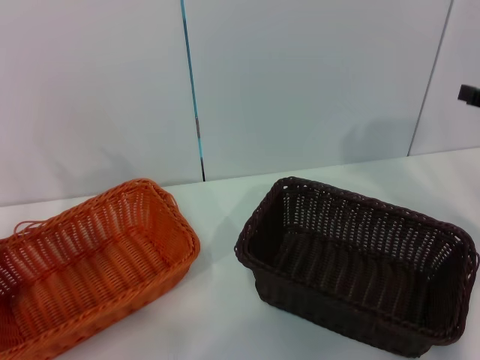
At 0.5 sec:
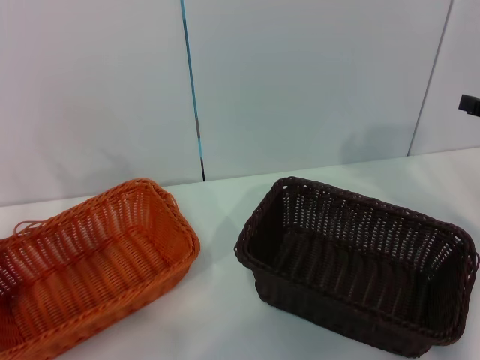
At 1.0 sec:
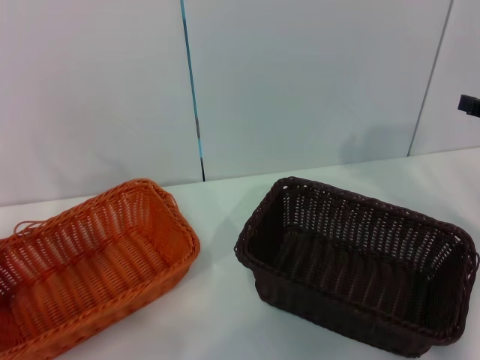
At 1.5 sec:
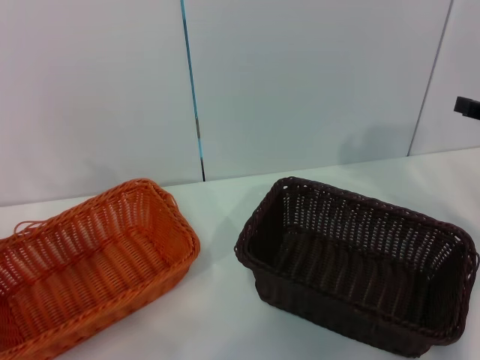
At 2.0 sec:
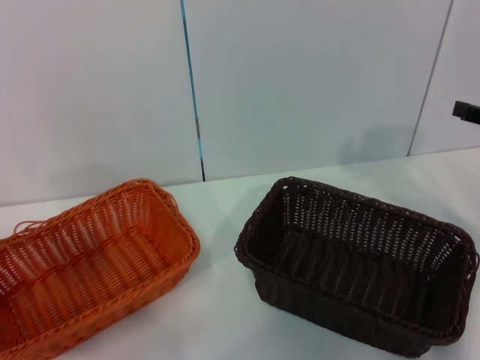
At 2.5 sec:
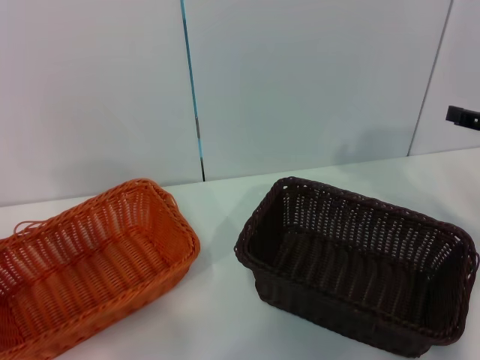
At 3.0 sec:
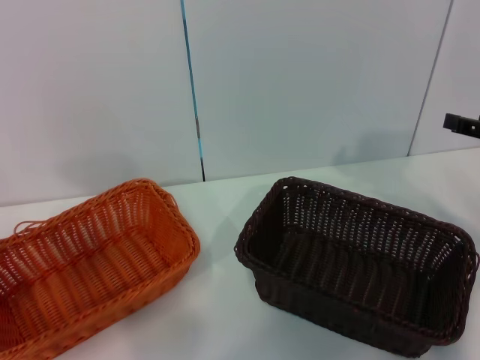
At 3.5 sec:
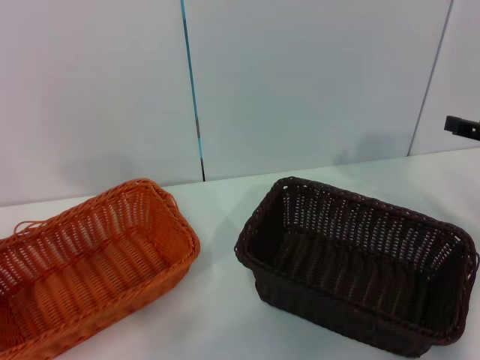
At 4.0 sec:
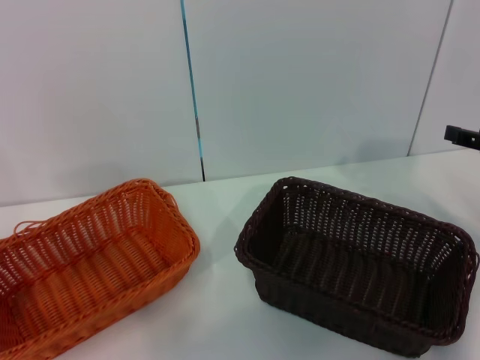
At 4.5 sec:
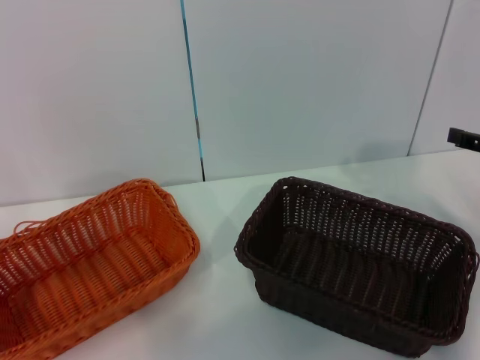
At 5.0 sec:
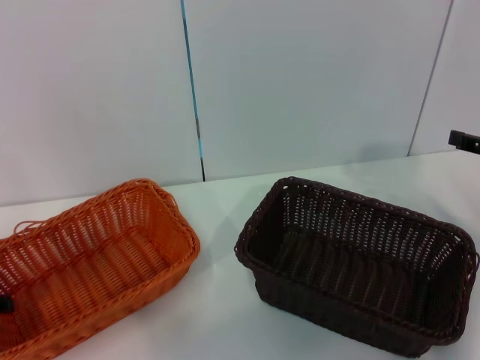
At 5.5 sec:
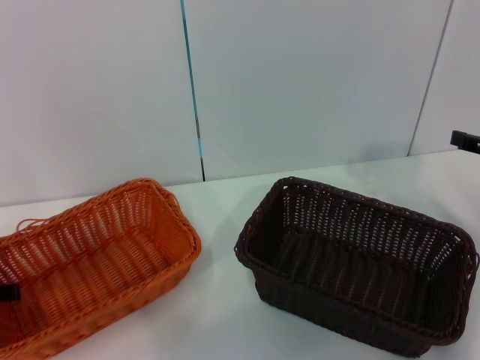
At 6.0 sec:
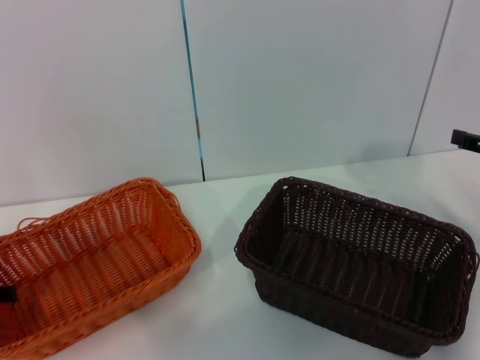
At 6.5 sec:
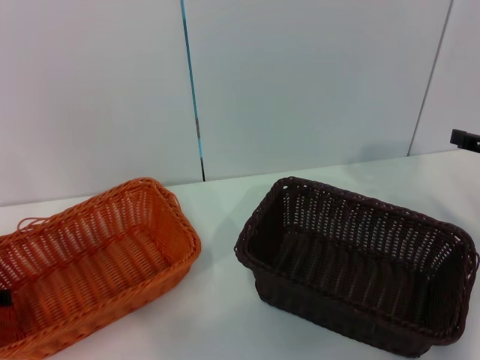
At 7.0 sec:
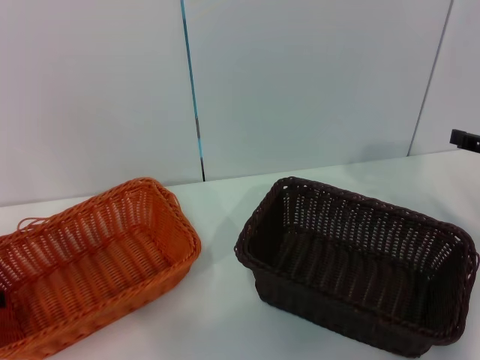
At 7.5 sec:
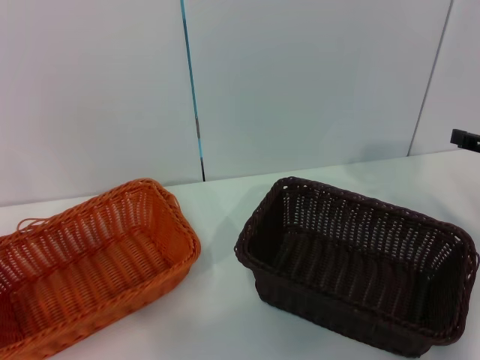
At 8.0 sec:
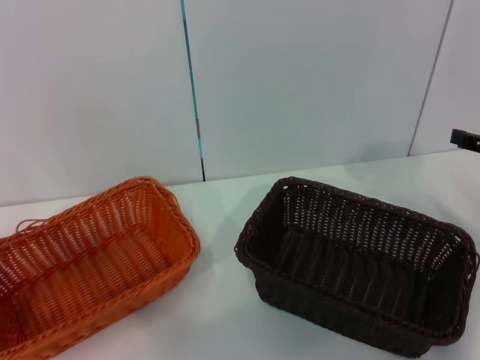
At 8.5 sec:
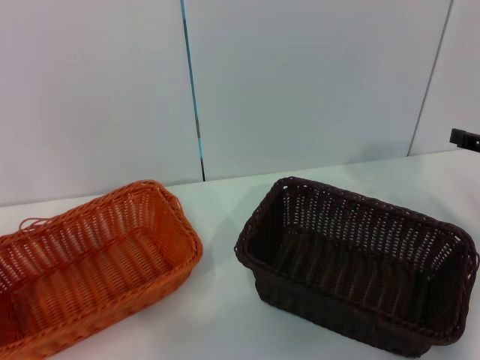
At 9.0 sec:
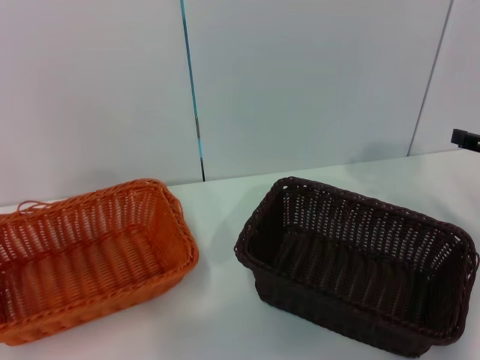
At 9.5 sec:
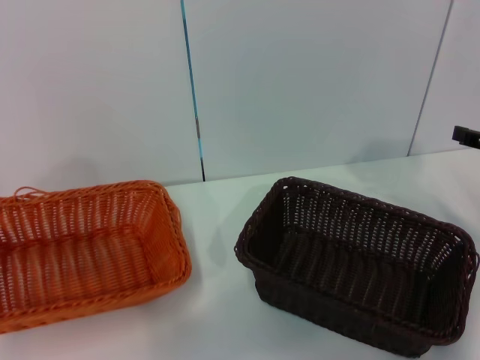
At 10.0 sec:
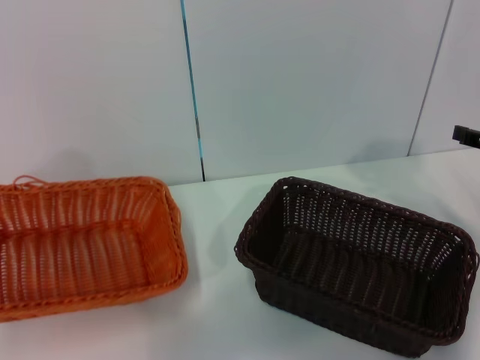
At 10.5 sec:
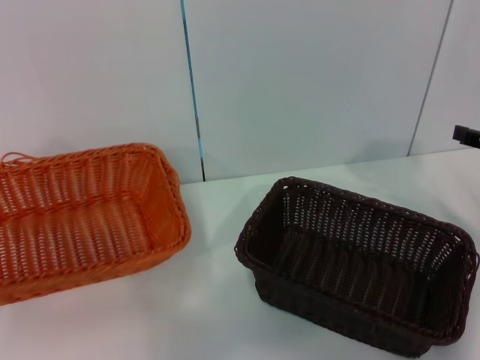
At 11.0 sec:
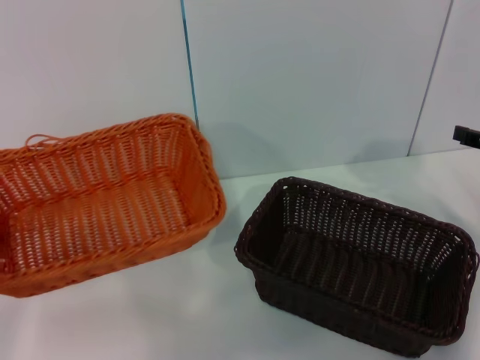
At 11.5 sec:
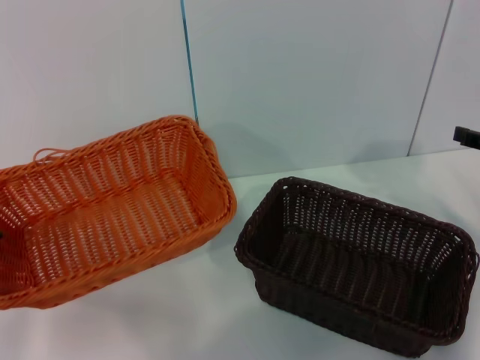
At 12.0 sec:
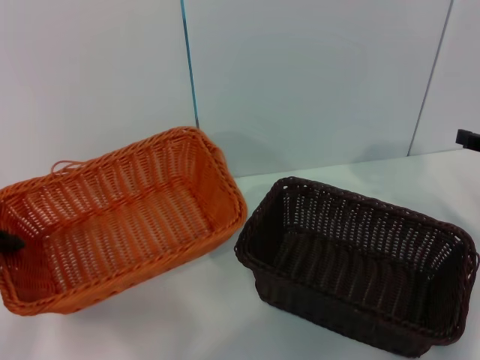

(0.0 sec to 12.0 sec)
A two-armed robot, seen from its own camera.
Step, 0.0 sec - 10.0 sec: Pick up the light basket with the left gripper.
4.0 sec - 6.0 sec: The left gripper travels downward by approximately 5 cm.
8.0 sec - 10.0 sec: The left gripper is displaced upward by some 5 cm.
10.0 sec - 12.0 sec: The left gripper shifts by about 5 cm.

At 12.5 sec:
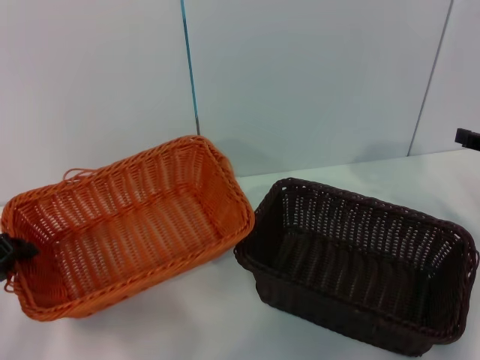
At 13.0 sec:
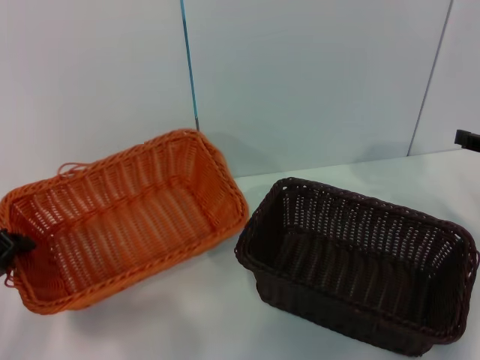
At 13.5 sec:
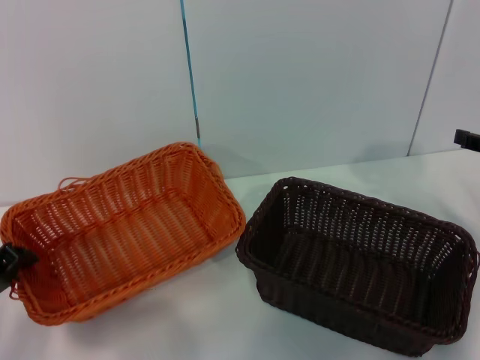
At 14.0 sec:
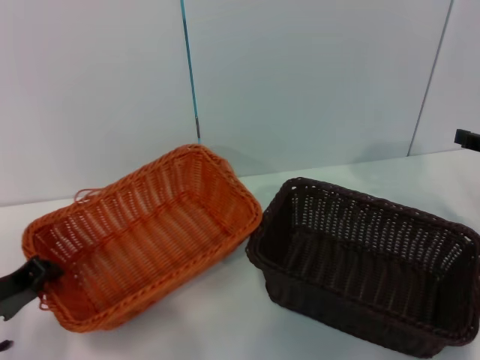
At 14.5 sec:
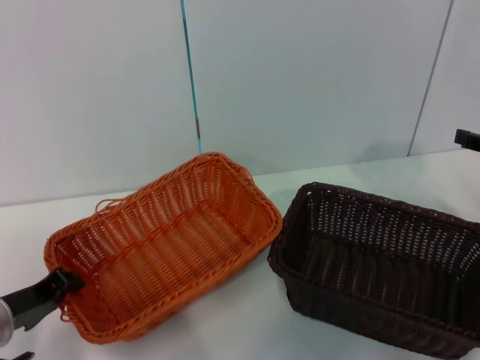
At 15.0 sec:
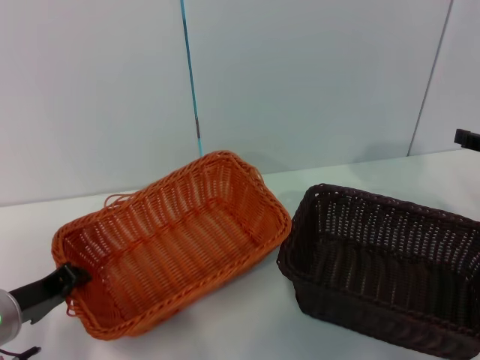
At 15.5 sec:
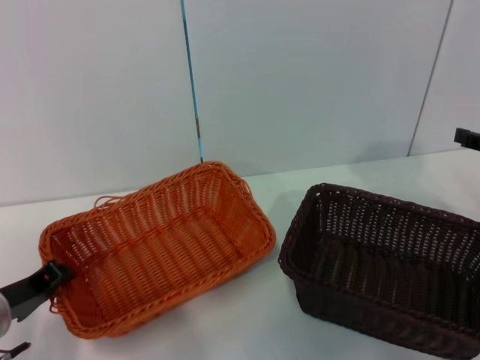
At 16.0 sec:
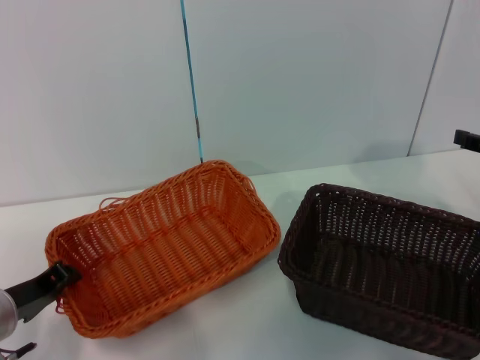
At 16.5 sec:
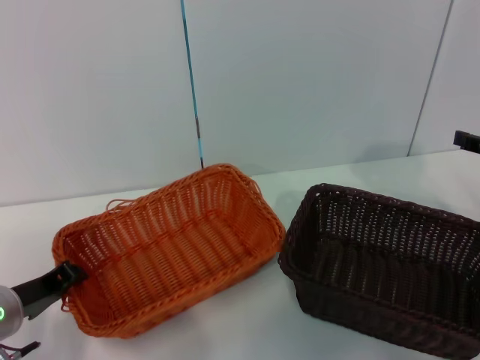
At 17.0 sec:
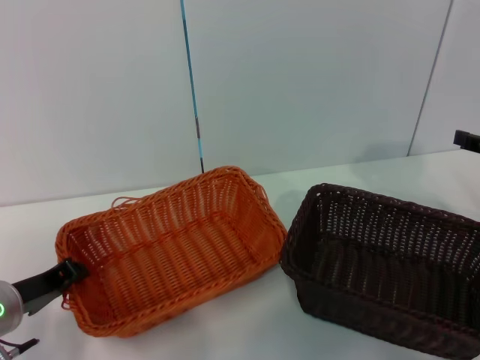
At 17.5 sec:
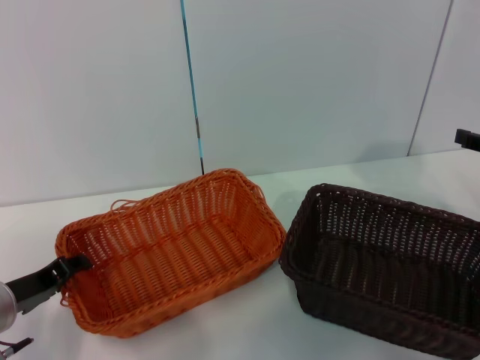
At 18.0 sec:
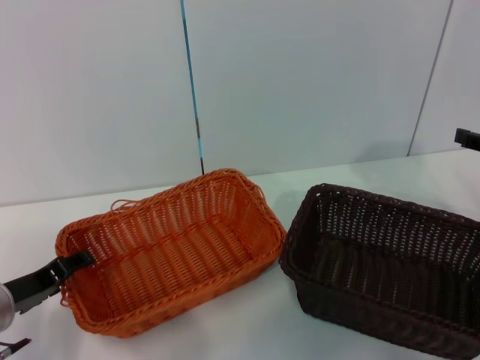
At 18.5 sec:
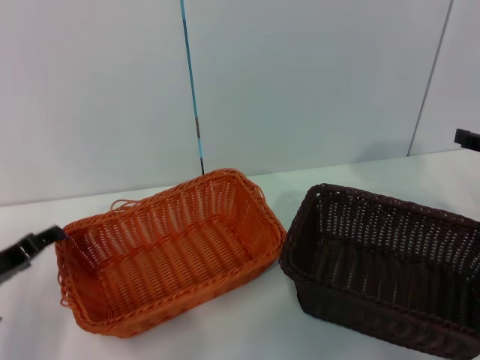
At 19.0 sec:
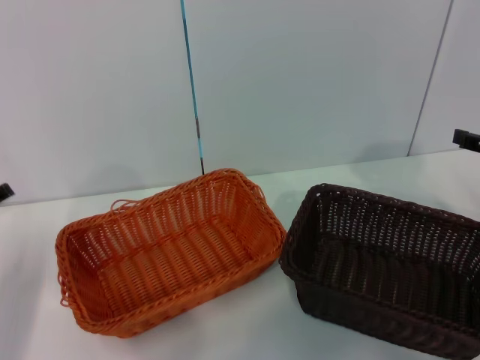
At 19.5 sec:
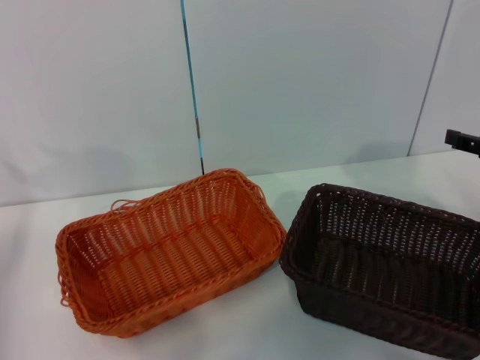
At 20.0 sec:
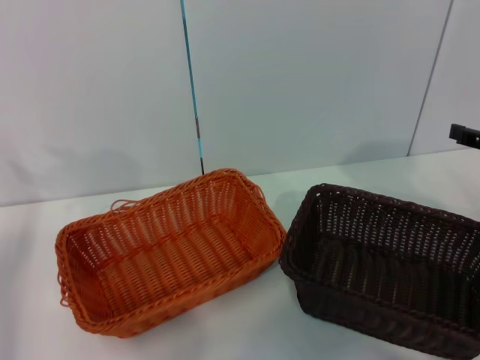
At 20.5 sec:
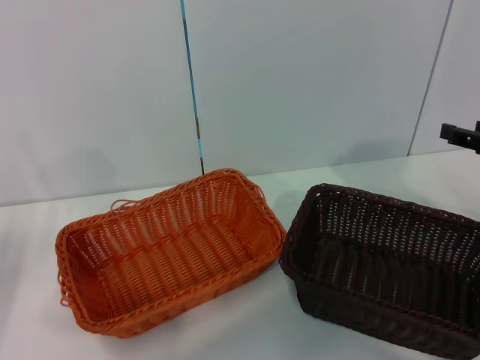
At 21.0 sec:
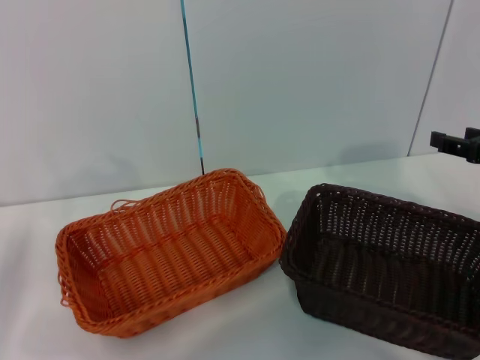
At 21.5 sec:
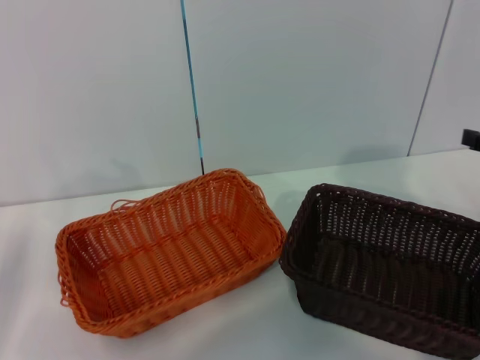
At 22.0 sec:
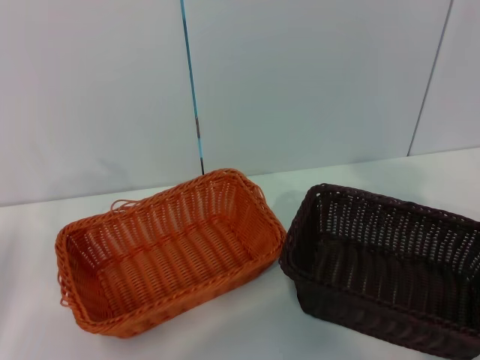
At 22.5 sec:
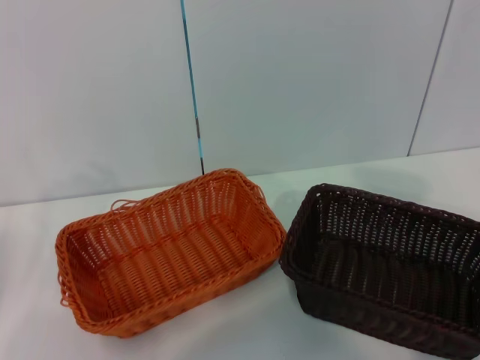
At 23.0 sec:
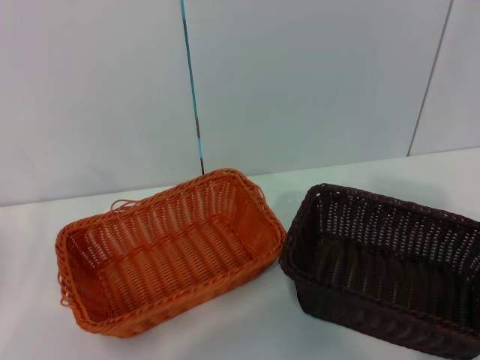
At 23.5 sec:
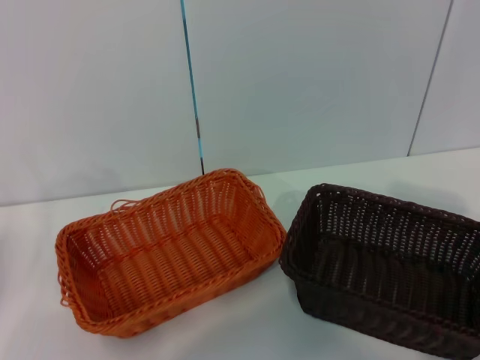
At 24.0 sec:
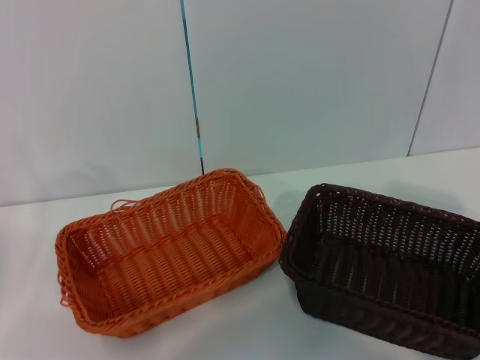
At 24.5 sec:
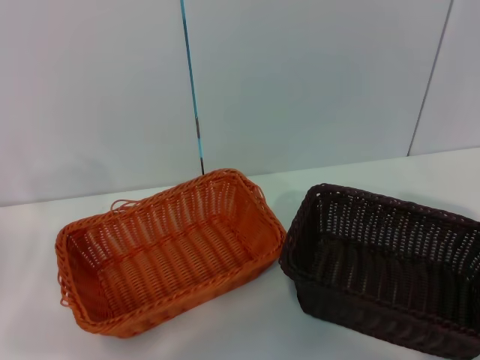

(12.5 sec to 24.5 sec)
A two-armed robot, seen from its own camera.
Step, 12.5 sec - 18.5 sec: Place the light basket in the center of view with the left gripper.
12.5 sec - 14.5 sec: The left gripper ends up approximately 5 cm from where it was.
14.5 sec - 16.5 sec: There are only small adjustments of the grippers.
16.5 sec - 18.5 sec: The left gripper opens its fingers.
18.5 sec - 20.5 sec: The left gripper travels to the left and upward by some 10 cm.
20.5 sec - 22.5 sec: The right gripper shifts roughly 10 cm backward.

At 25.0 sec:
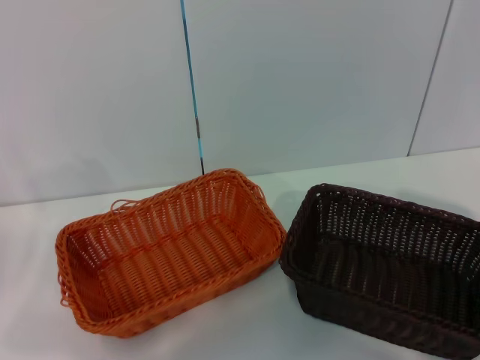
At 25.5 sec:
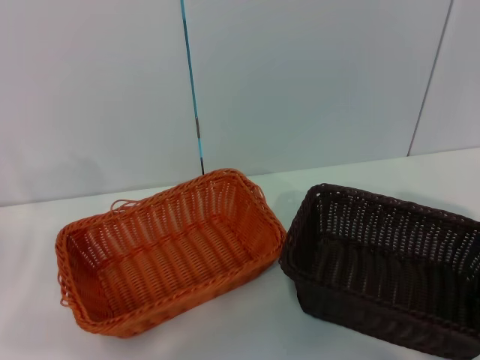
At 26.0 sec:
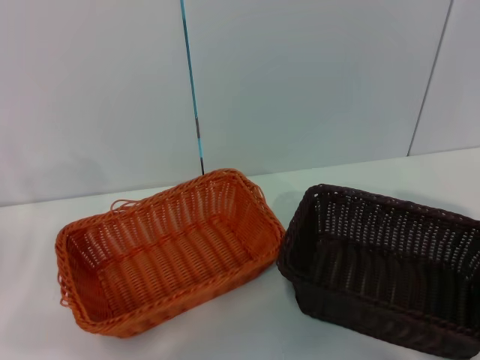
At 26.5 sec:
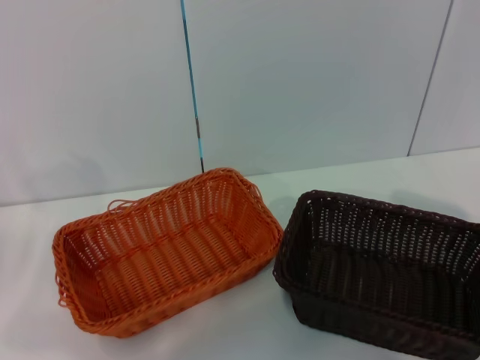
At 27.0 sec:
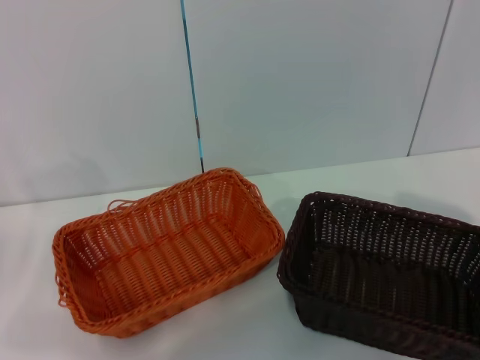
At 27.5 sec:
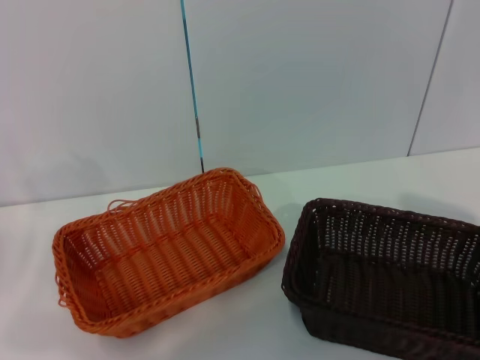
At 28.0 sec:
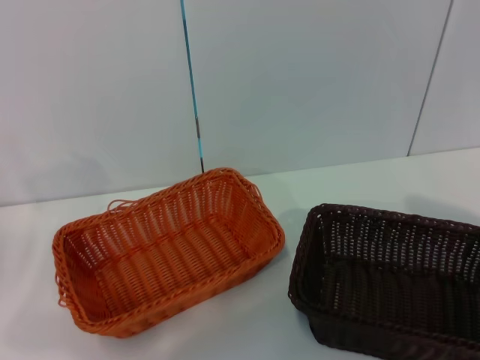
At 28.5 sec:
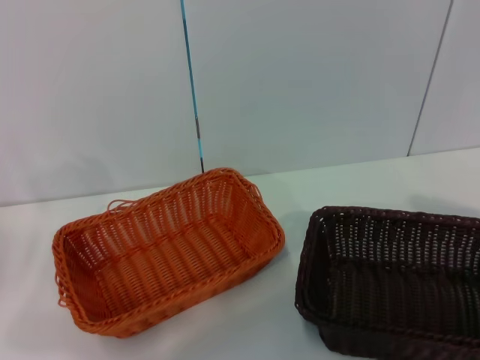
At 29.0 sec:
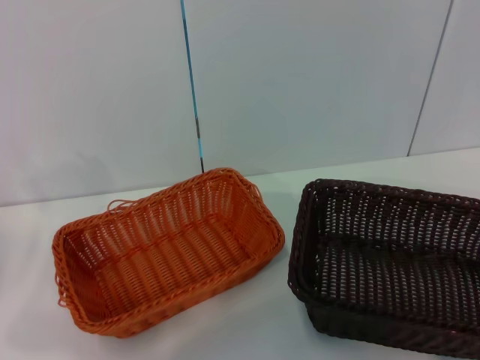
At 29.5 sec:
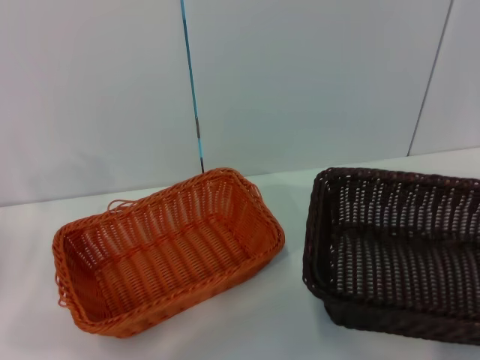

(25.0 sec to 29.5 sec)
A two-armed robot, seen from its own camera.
Step, 25.0 sec - 29.0 sec: Pick up the dark basket with the right gripper.
25.0 sec - 27.0 sec: The right gripper closes.
27.0 sec - 29.5 sec: The right gripper heads upward and backward, covering about 10 cm.
